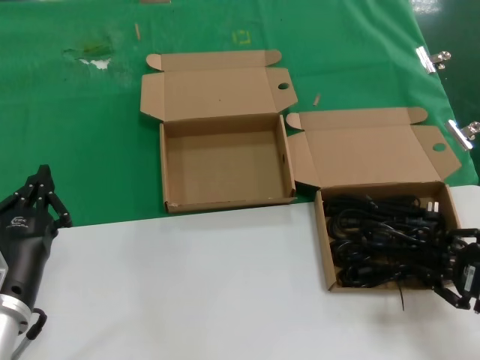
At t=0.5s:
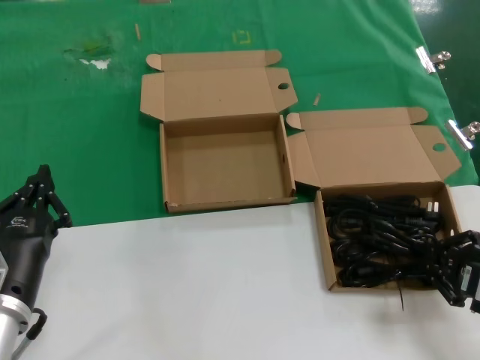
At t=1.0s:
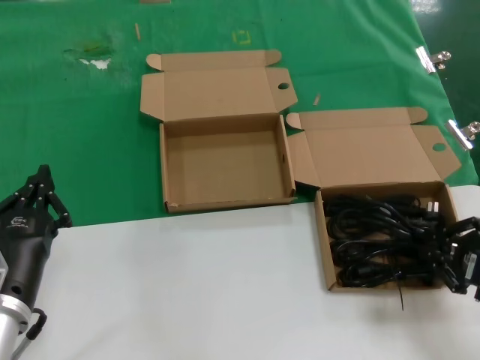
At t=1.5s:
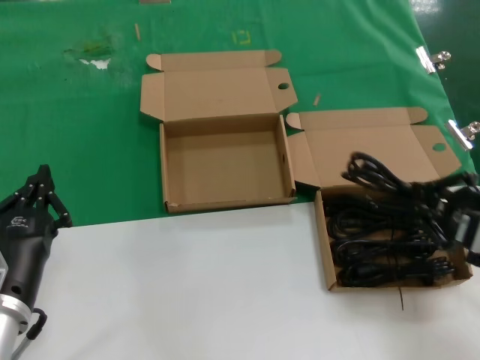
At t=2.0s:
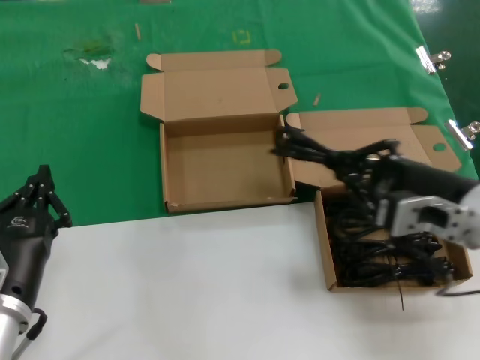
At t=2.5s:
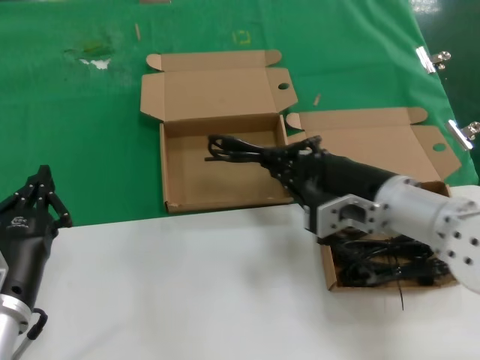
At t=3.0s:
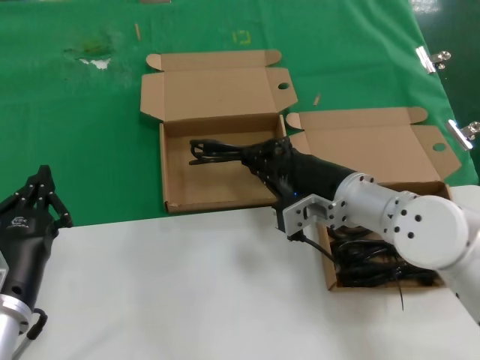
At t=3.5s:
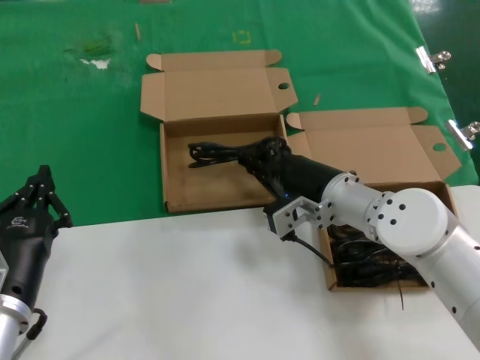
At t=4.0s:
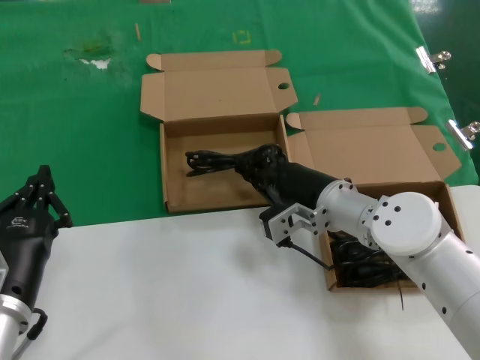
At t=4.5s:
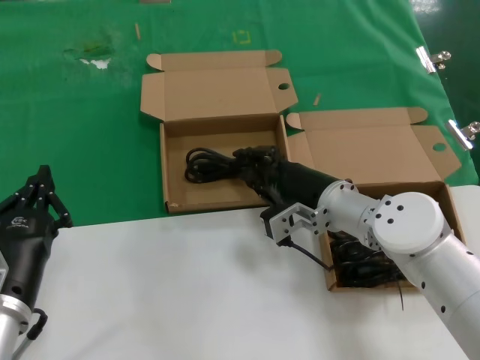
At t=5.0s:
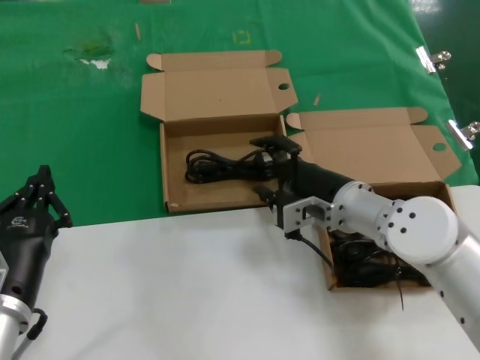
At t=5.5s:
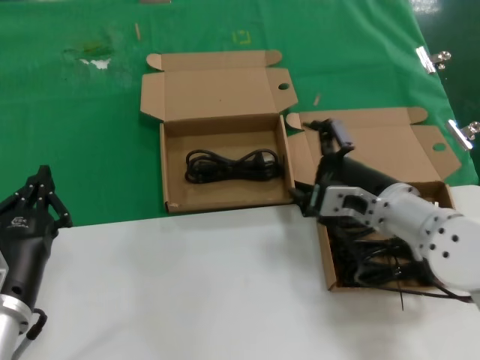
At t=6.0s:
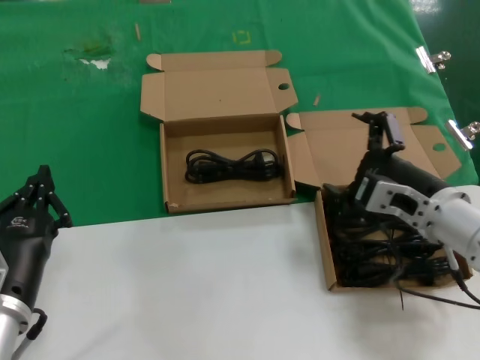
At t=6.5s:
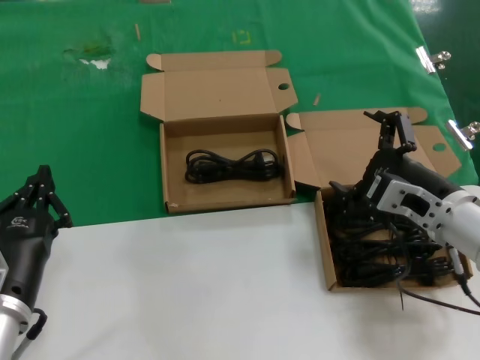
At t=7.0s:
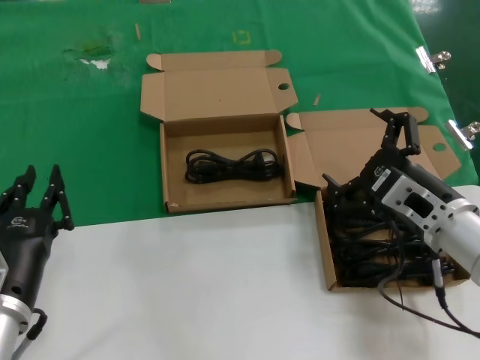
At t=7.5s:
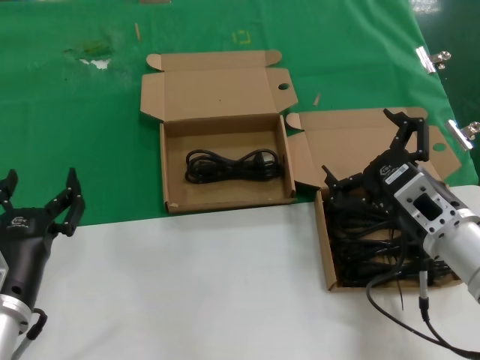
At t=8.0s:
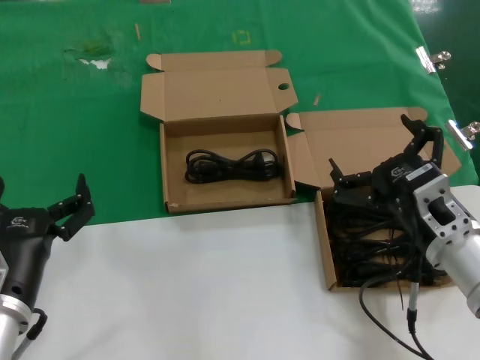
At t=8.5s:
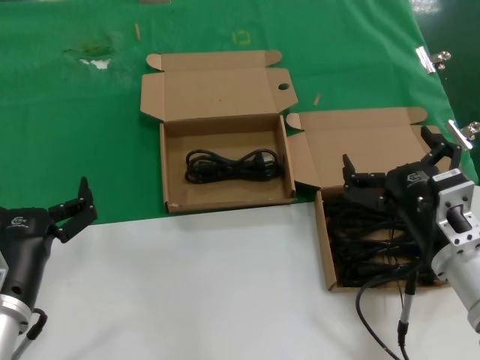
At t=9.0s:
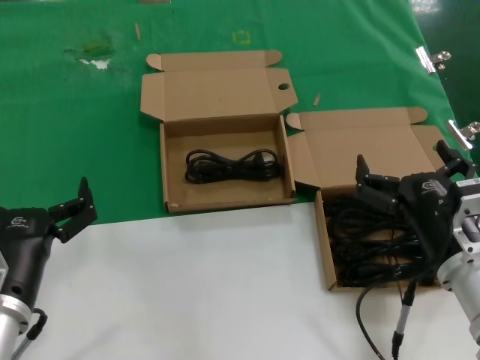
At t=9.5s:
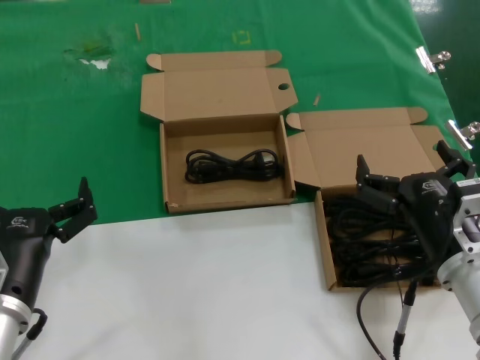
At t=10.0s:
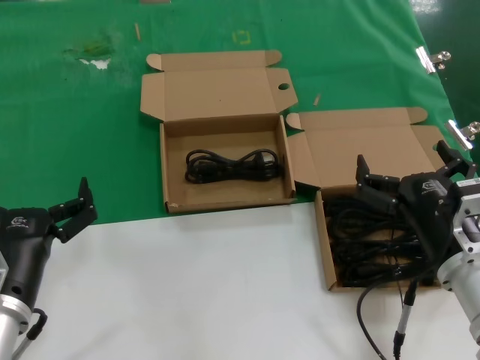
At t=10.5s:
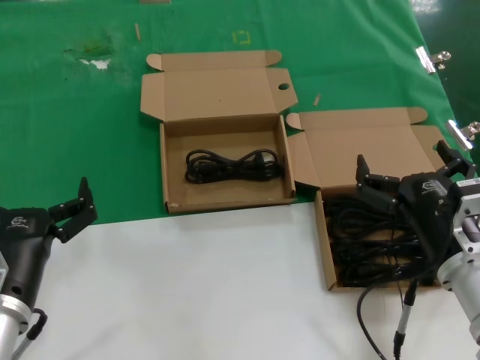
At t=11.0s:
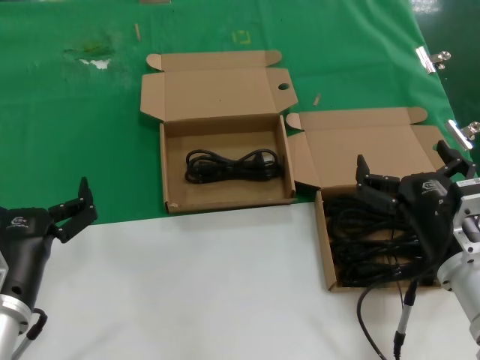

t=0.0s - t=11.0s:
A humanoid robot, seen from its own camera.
Task of the whole recording: take the parts from the box containing them and put them into an empty box.
Step, t=0.5s - t=4.5s: Place the data cable in the another box.
t=0.0s - t=2.0s: The right hand goes some 15 cm to the left, upward and forward.
t=2.0s - t=3.5s: The right hand heads forward, to the left and downward, covering roughly 20 cm.
t=3.5s - t=5.5s: The right hand ends up approximately 5 cm from where it was.
t=5.5s - t=7.5s: The right hand moves backward, roughly 5 cm.
t=7.5s - t=9.0s: The right hand changes place by about 5 cm.
t=9.0s - t=11.0s: Both hands stay put.

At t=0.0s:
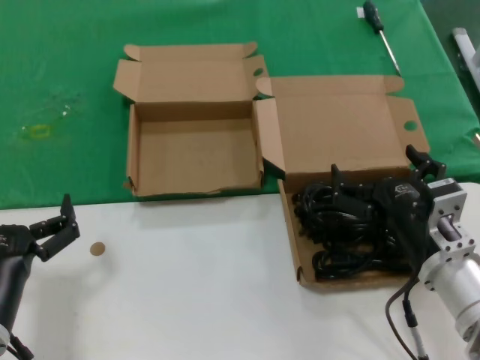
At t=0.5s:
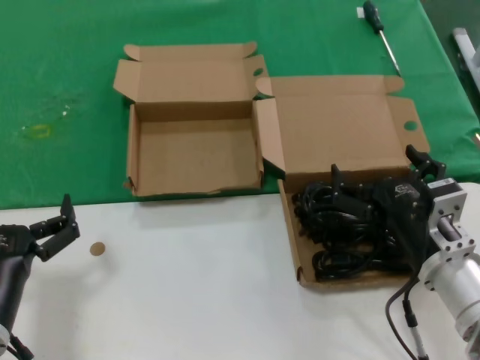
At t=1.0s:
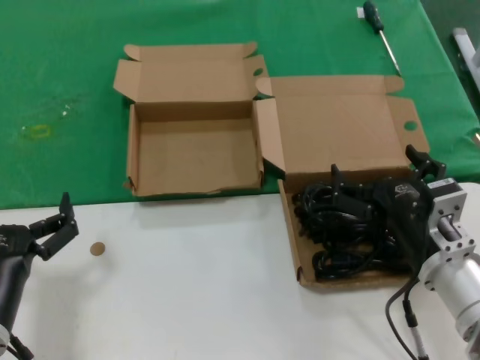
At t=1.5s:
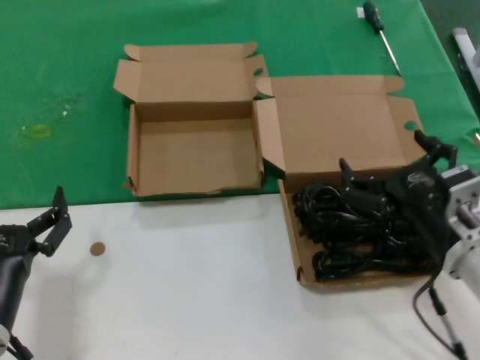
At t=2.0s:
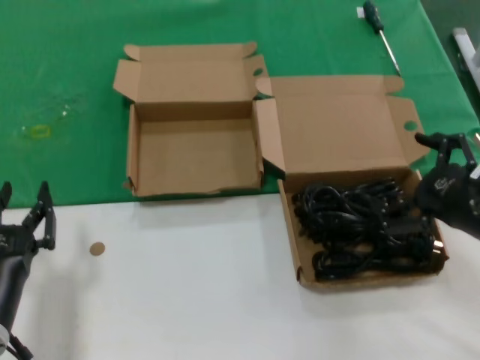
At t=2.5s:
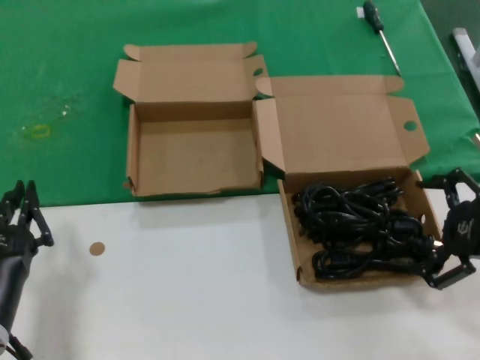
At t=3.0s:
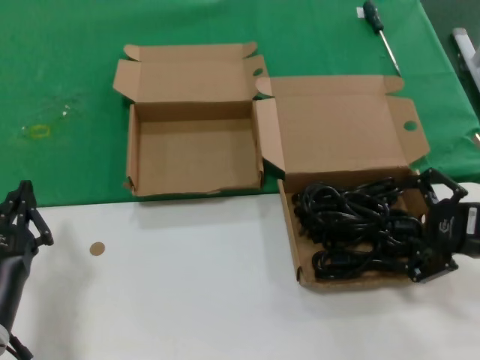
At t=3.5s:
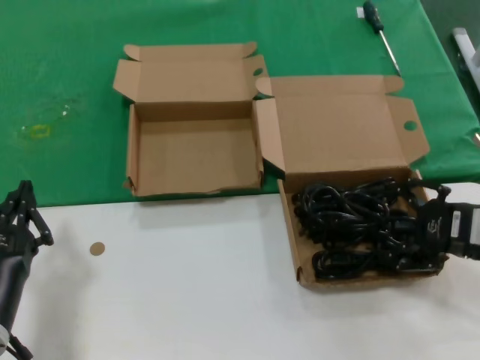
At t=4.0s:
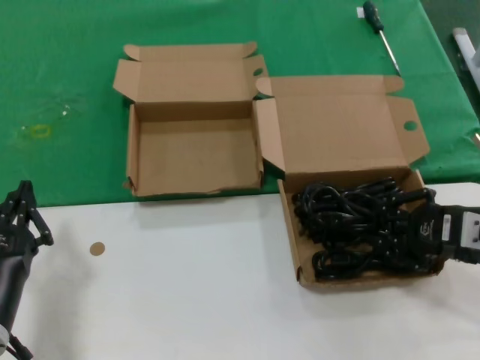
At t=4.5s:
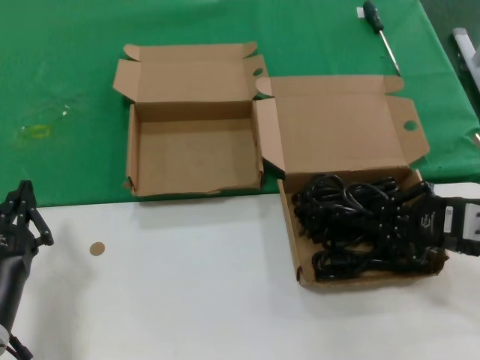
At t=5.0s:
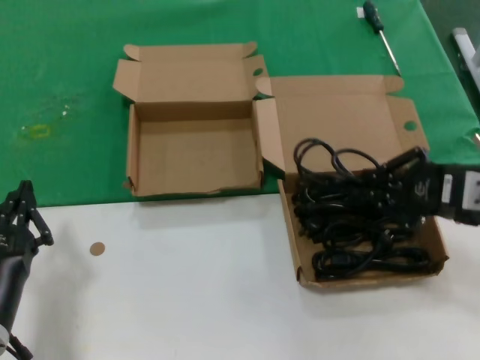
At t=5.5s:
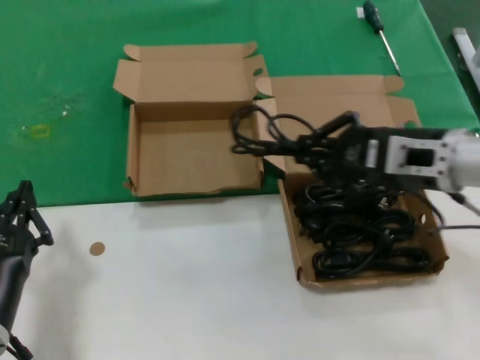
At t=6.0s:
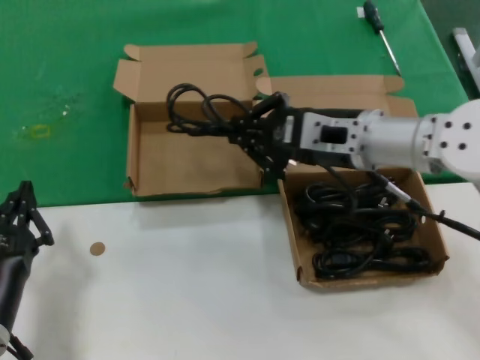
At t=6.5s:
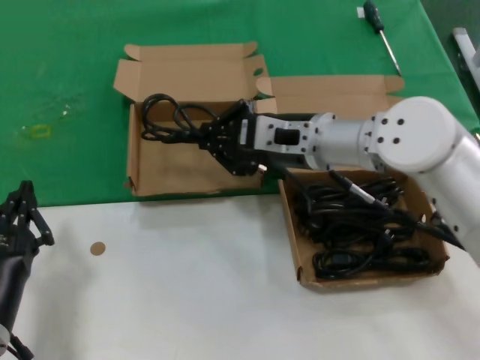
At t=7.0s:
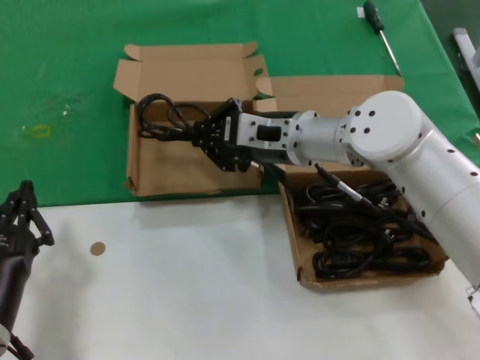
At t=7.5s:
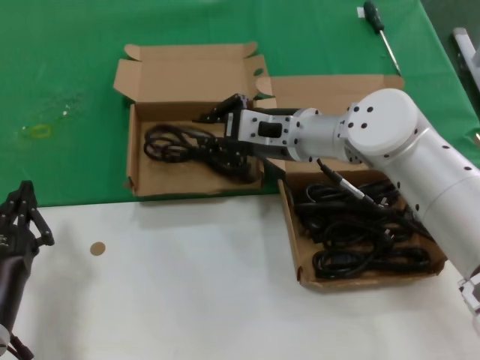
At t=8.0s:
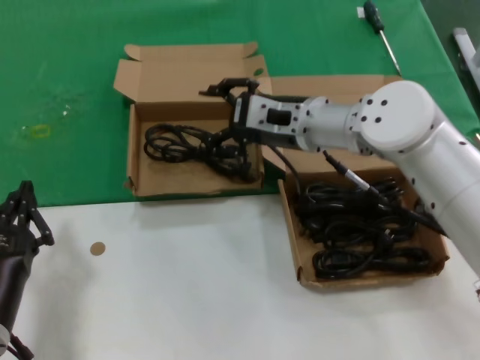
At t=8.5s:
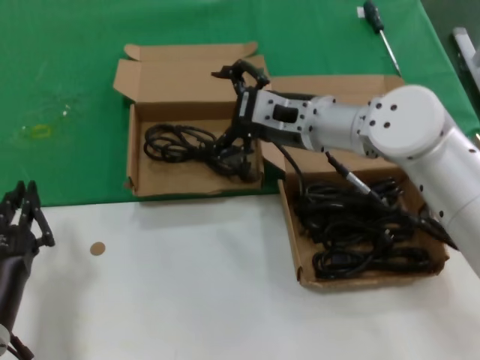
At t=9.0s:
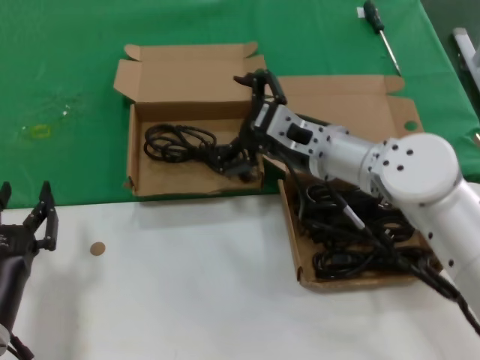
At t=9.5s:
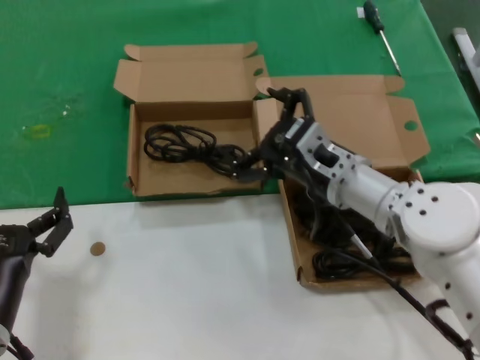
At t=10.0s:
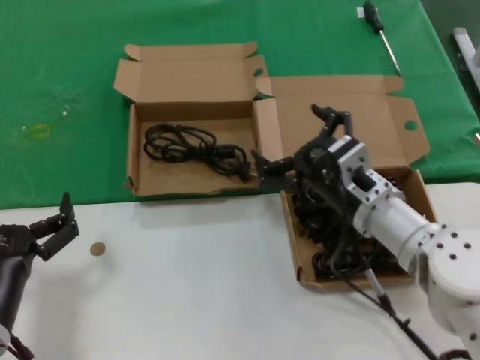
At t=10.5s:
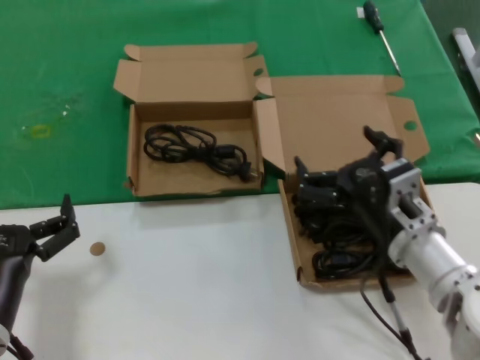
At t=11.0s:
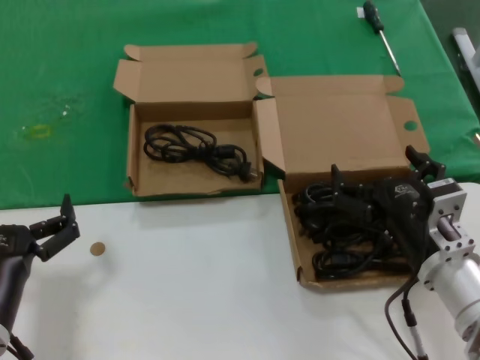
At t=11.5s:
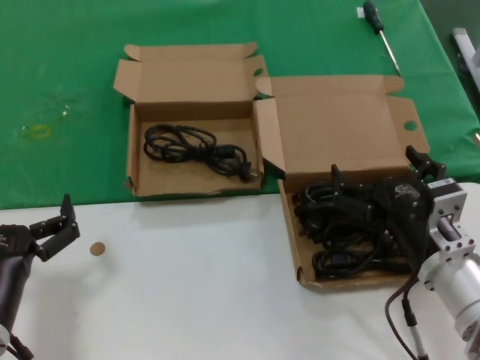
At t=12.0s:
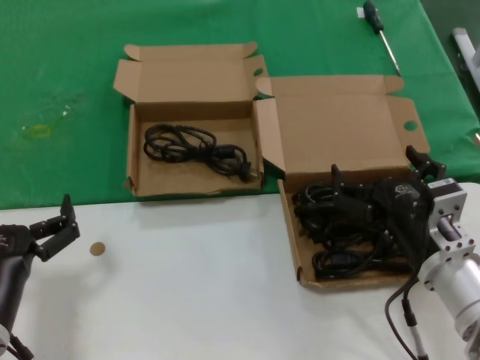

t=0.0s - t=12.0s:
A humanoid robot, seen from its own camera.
Task of the whole recording: take the parts from the box containing them and put them into an empty box.
Step, t=0.0s - t=4.0s: Grasp the data cable.
Step, t=4.5s - t=8.0s: Place the data cable in the another box.
t=0.0s - t=2.0s: The right hand moves to the right and upward, approximately 15 cm.
t=4.0s - t=6.0s: The right hand moves to the left, forward and upward, approximately 20 cm.
t=6.0s - t=8.0s: The right hand shifts approximately 10 cm forward and to the left.
t=8.0s - t=10.0s: The right hand is displaced backward, downward and to the right by about 15 cm.
t=10.0s - t=12.0s: The right hand travels backward by roughly 10 cm.

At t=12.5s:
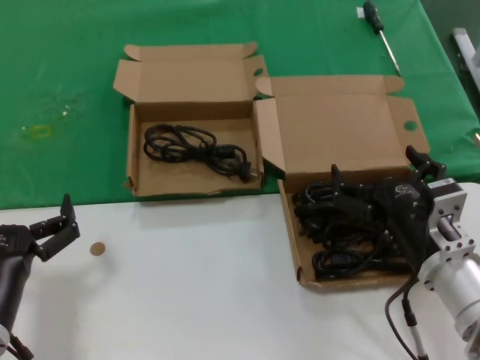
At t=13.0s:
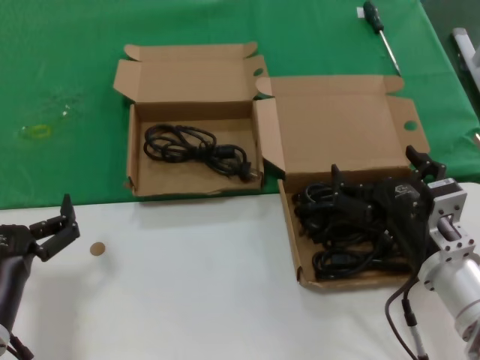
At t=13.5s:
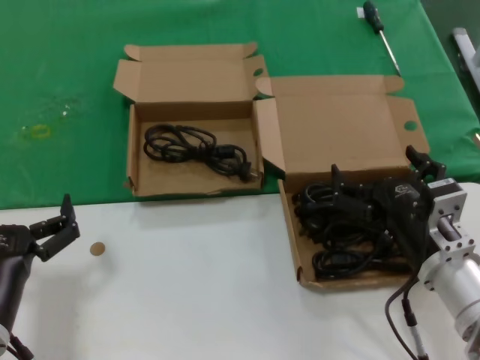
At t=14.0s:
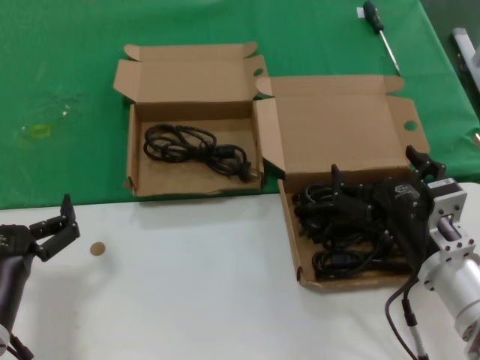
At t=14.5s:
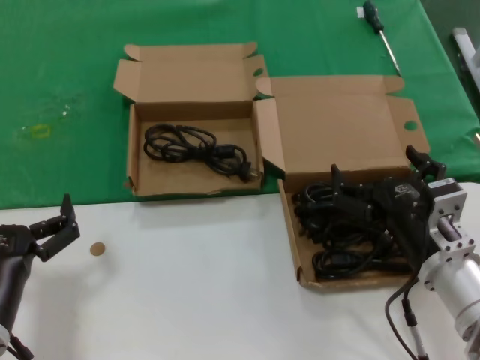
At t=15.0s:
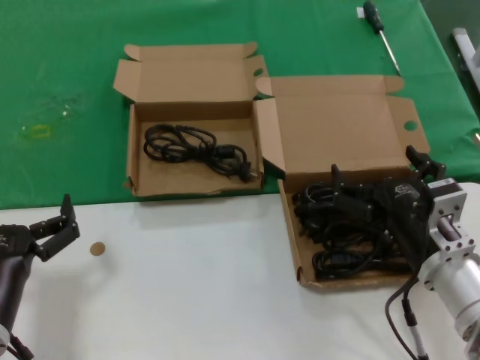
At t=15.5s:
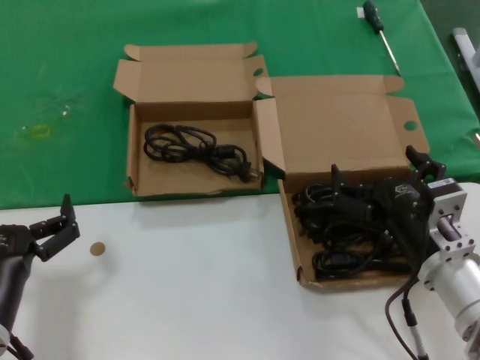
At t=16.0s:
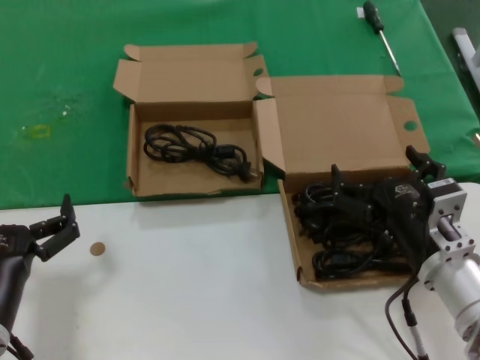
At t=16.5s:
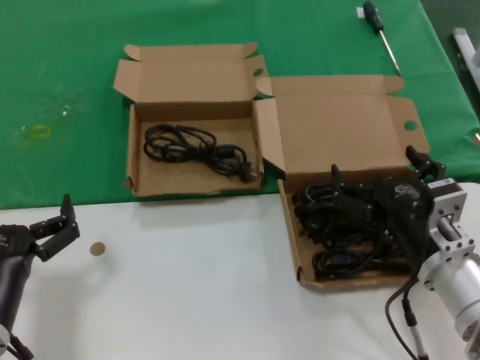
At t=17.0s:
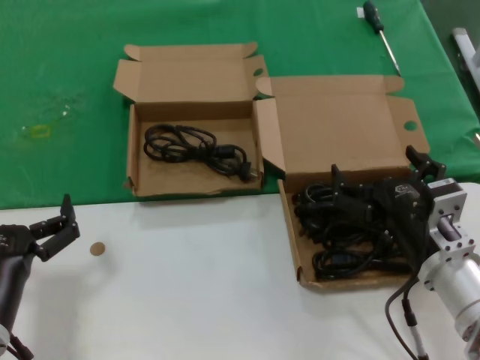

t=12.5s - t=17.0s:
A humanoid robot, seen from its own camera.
Task of the whole recording: take the parts from the box containing them and put them into an empty box.
t=12.5s - t=17.0s: The two hands keep their place.
